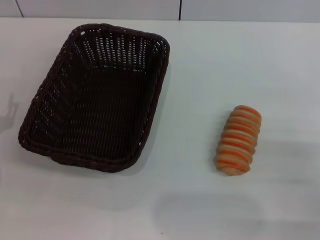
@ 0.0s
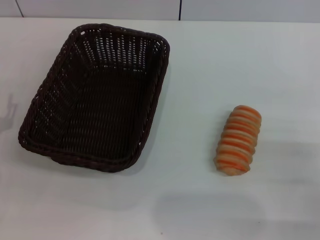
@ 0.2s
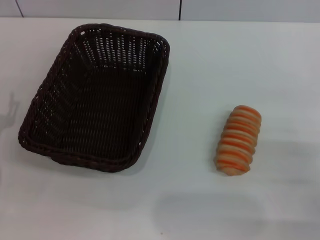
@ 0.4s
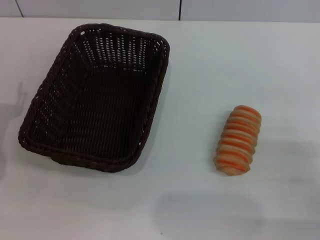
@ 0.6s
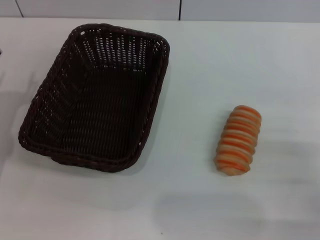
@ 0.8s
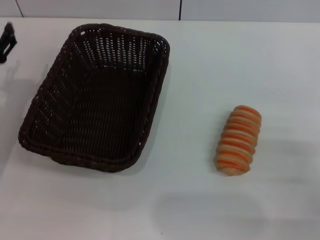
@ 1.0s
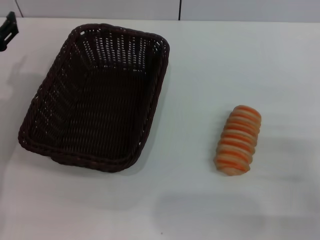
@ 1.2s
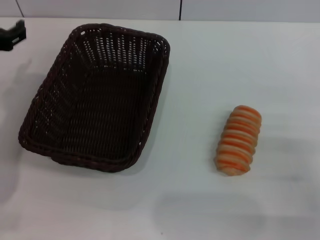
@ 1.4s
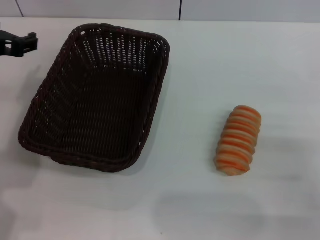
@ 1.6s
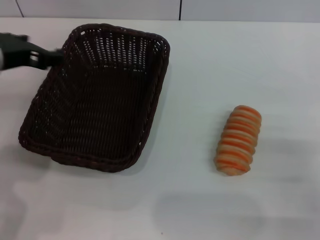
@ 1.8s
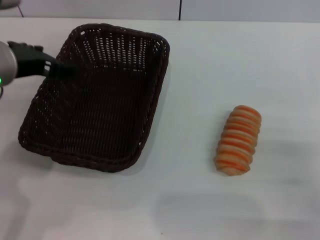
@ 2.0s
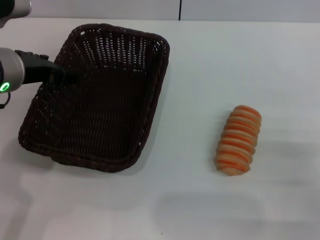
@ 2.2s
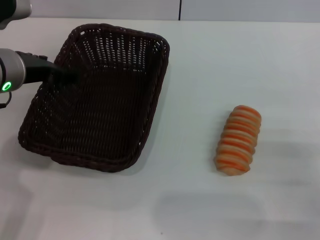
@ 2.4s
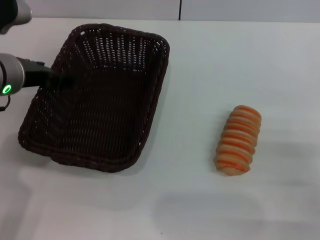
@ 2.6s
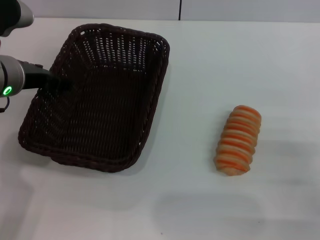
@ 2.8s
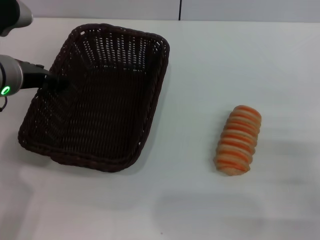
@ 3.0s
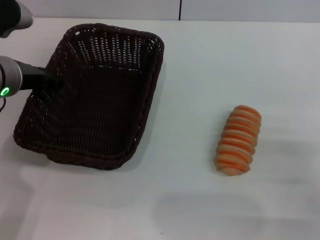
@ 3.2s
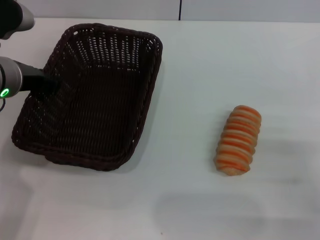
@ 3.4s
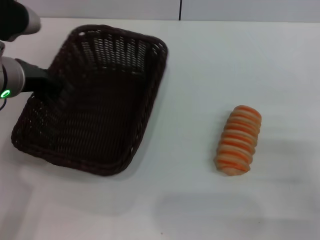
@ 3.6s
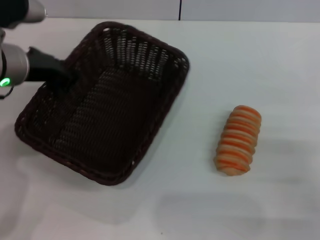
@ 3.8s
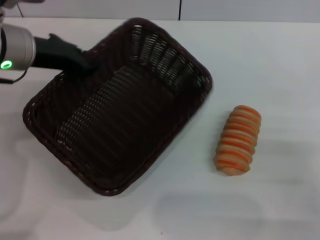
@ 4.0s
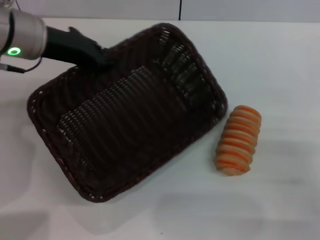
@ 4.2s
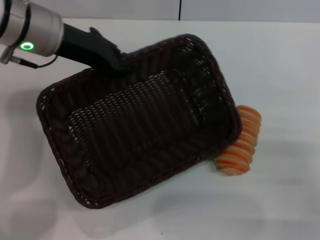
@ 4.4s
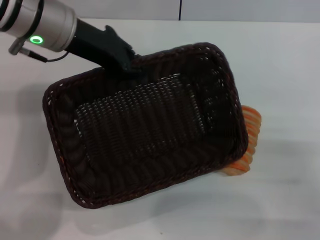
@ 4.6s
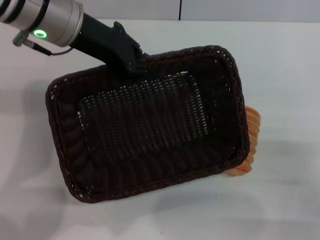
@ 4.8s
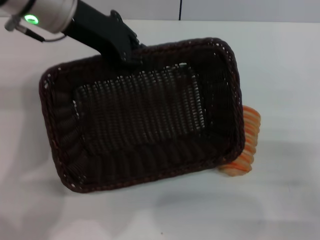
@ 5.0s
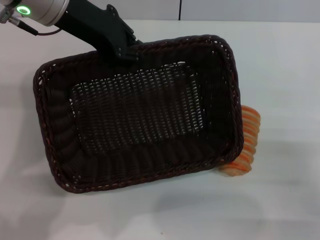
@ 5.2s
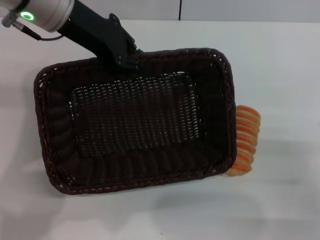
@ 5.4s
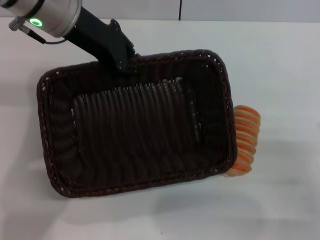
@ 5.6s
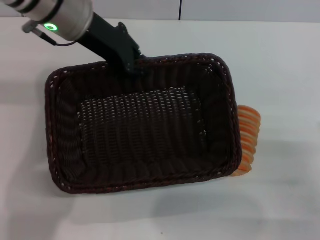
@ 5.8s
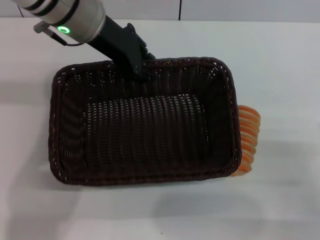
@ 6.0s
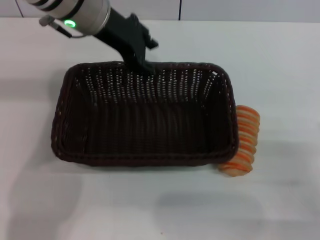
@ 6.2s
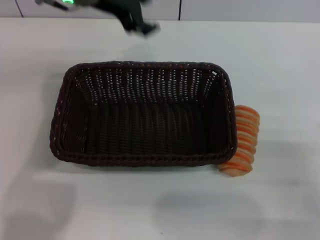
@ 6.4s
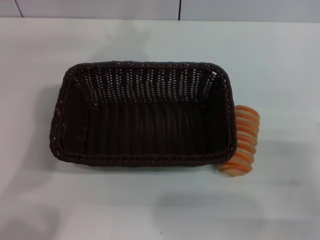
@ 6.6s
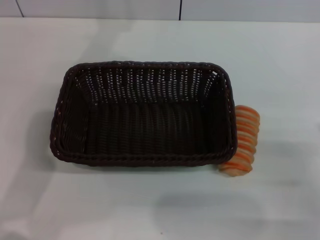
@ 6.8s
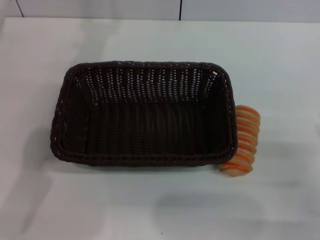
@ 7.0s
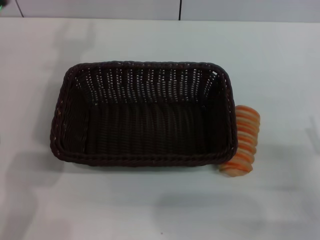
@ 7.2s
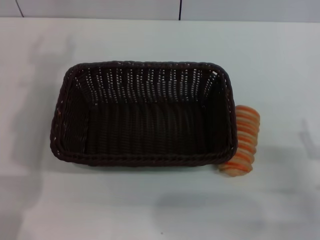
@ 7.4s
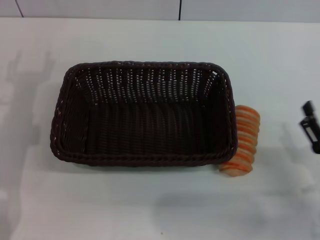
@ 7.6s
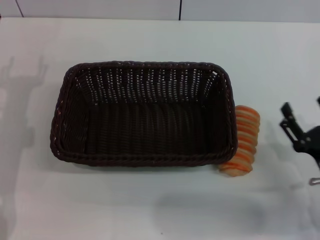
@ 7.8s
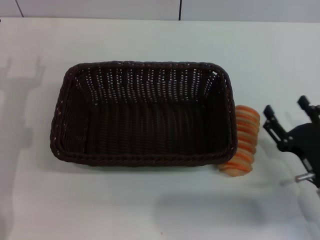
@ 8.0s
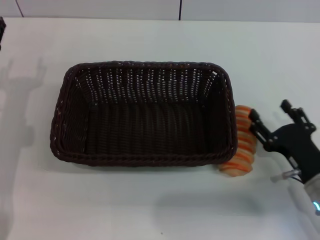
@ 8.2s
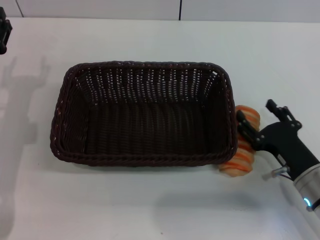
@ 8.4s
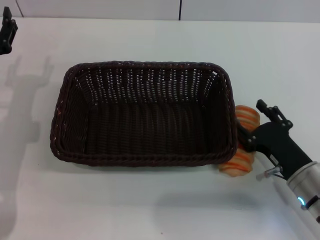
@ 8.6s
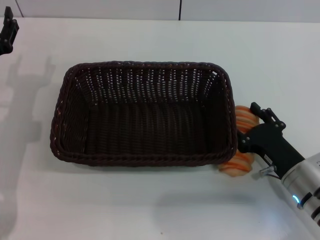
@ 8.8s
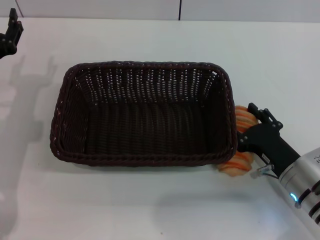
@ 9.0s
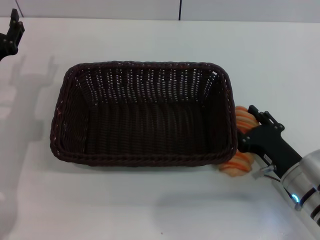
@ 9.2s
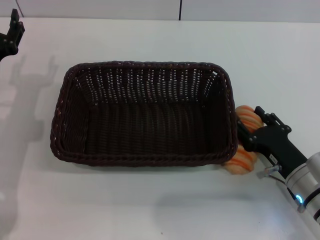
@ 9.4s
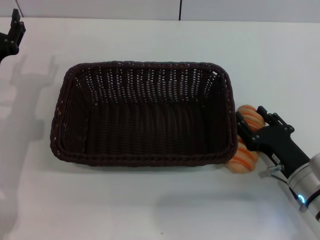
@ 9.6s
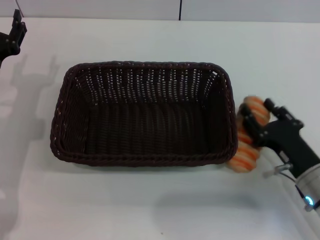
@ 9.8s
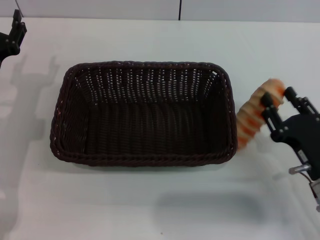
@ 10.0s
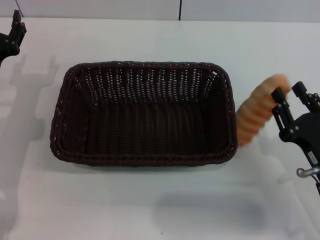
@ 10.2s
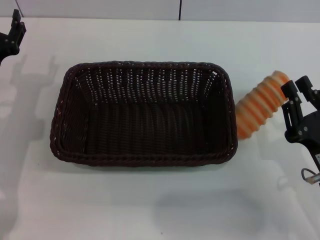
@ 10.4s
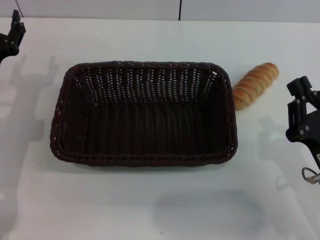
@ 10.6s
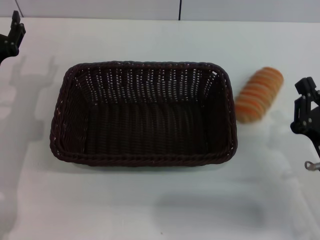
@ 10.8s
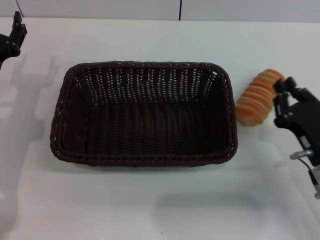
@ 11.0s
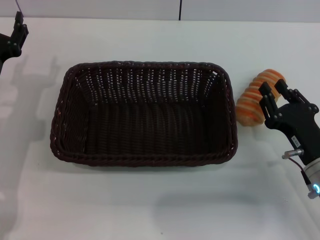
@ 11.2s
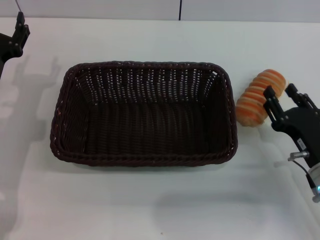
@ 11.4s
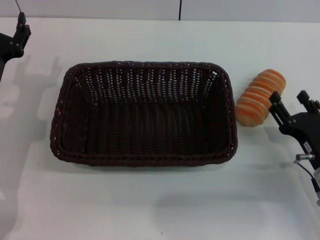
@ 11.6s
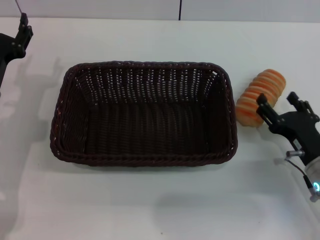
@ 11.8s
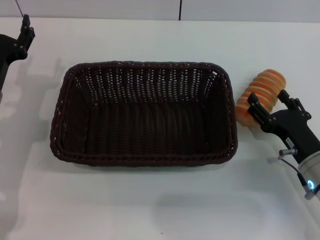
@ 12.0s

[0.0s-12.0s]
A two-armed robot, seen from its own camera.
Step, 0.0s to 3.8s: Pick up the dark basket with the left gripper.
Step, 4.0s to 6.2s: Place the dark basket in the center of view with the left gripper.
0.0s to 1.6s: The left gripper moves upward and forward, some 20 cm.
1.6s to 3.0s: The left gripper ends up approximately 5 cm from where it was.
3.0s to 4.4s: The left gripper moves upward, some 5 cm, and closes up.
4.4s to 6.0s: The left gripper travels to the right by approximately 5 cm.
6.0s to 7.6s: The left gripper moves to the left, downward and backward, some 20 cm, and opens up.
7.6s to 9.0s: The right gripper goes roughly 10 cm forward and to the left.
9.0s to 10.4s: The right gripper shifts roughly 5 cm backward, and closes.
10.4s to 12.0s: The right gripper is displaced forward by approximately 5 cm, and opens.

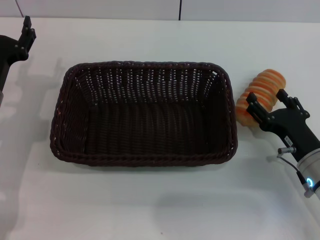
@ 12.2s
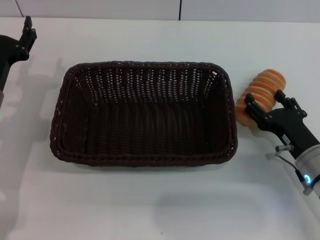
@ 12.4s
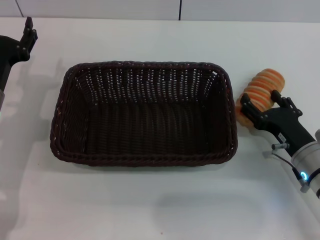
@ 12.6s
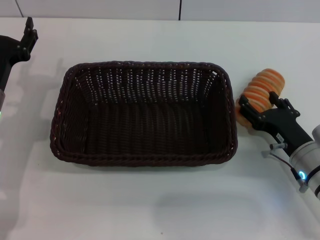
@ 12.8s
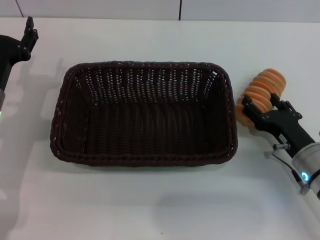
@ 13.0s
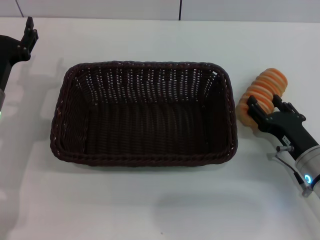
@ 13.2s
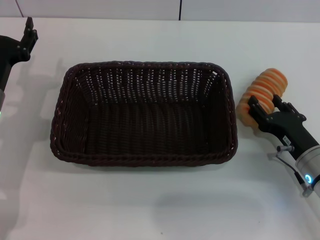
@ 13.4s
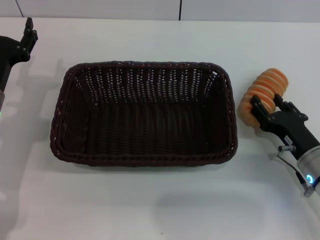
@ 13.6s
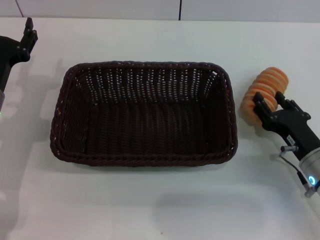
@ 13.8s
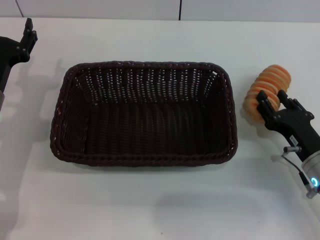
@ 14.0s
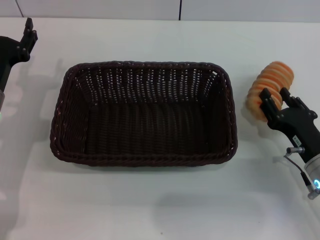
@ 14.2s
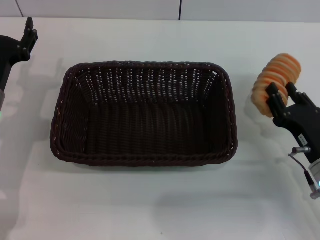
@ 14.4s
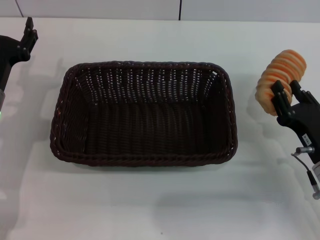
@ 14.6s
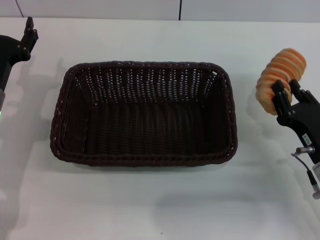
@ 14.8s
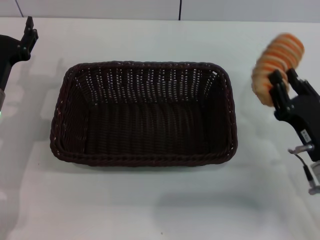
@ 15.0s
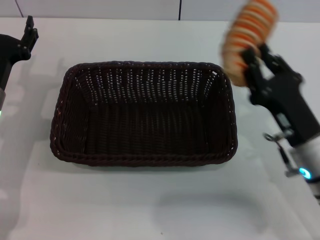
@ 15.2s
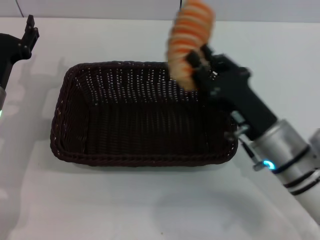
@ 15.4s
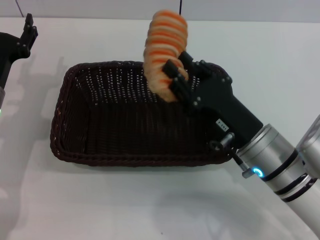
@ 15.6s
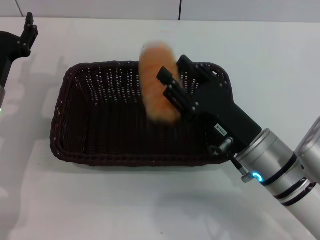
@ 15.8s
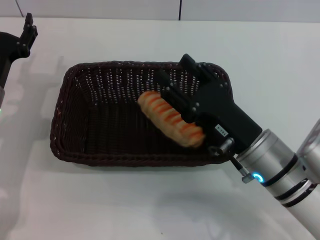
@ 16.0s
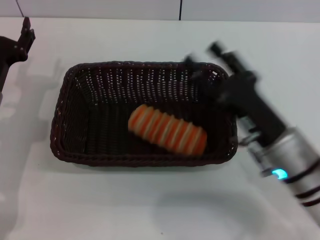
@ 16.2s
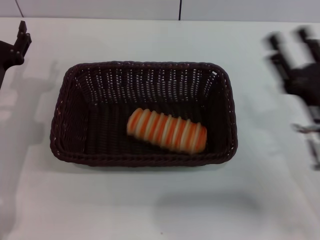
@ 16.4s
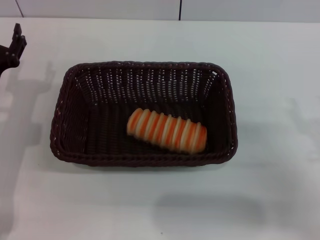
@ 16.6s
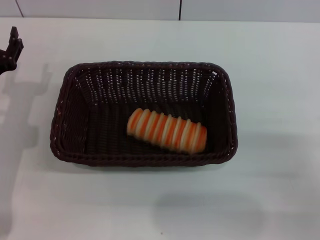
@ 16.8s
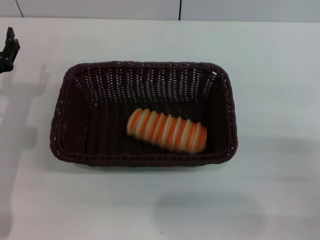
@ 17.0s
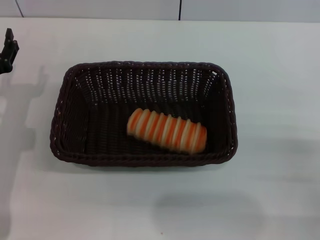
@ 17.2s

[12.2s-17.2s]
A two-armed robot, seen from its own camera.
Step, 12.2s to 14.4s: Pick up the long bread with the right gripper.
Step, 14.6s to 16.0s: Place the long bread into the dark basket with the right gripper.
12.2s to 13.8s: The right gripper closes its fingers.
13.8s to 15.6s: The right gripper shifts roughly 10 cm to the left and upward, and closes up.
15.6s to 17.2s: The right gripper is displaced to the right by approximately 20 cm, and opens.

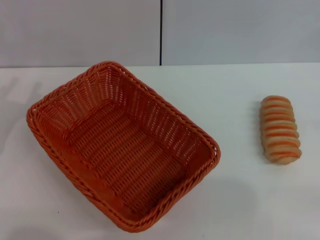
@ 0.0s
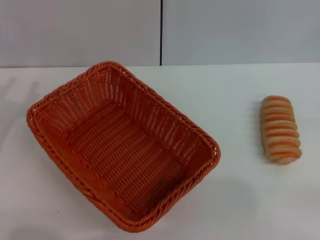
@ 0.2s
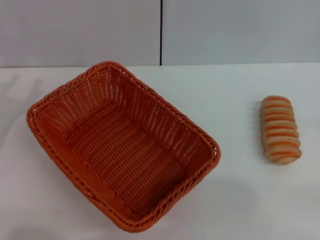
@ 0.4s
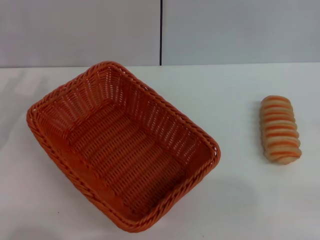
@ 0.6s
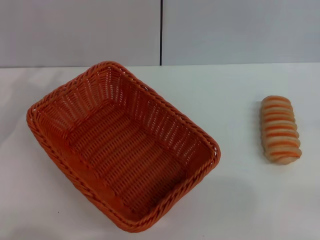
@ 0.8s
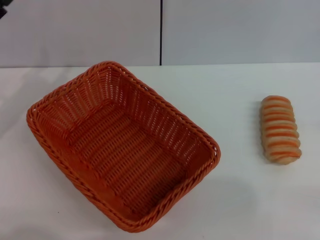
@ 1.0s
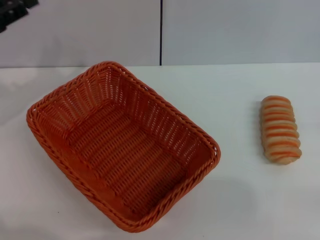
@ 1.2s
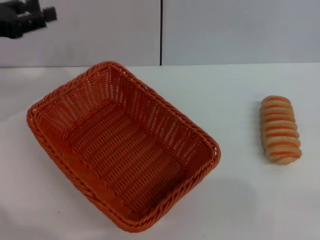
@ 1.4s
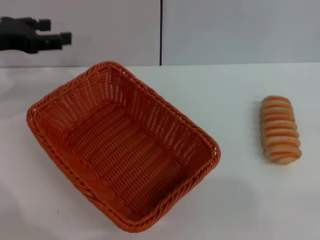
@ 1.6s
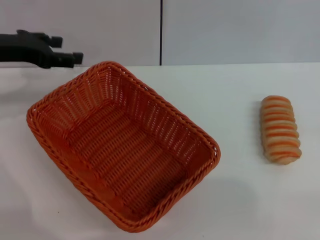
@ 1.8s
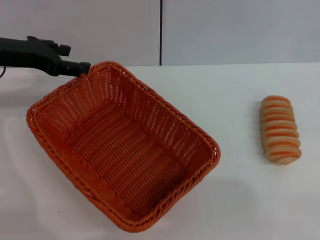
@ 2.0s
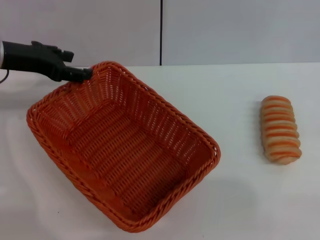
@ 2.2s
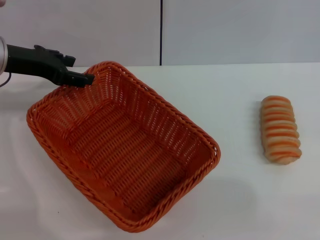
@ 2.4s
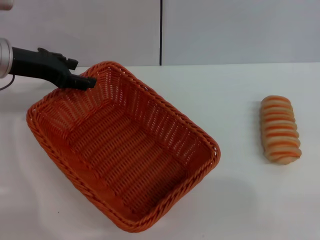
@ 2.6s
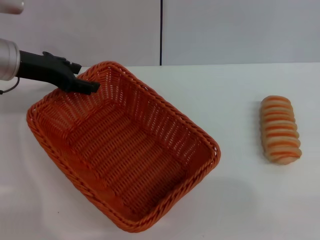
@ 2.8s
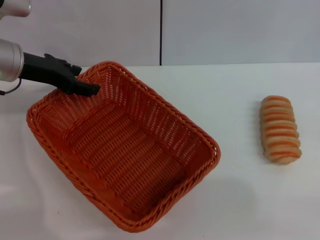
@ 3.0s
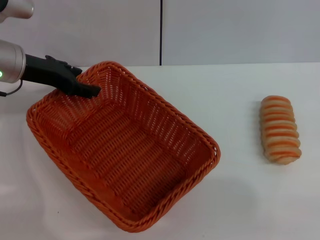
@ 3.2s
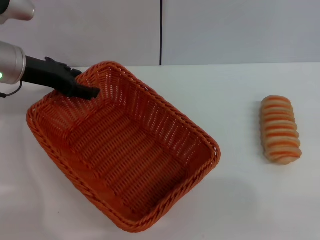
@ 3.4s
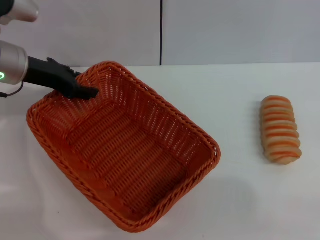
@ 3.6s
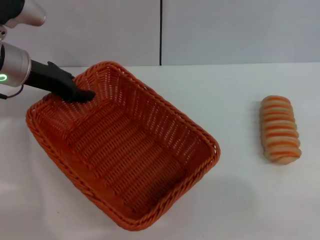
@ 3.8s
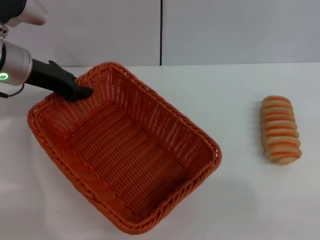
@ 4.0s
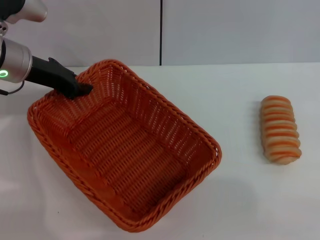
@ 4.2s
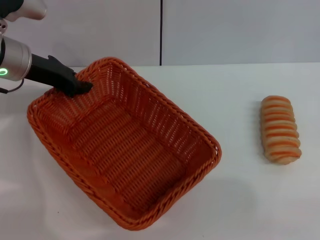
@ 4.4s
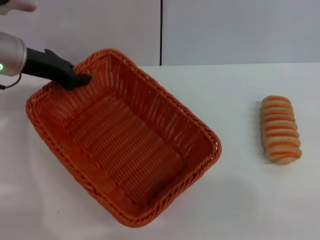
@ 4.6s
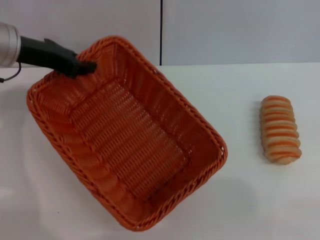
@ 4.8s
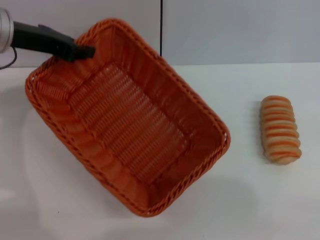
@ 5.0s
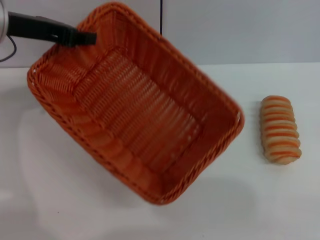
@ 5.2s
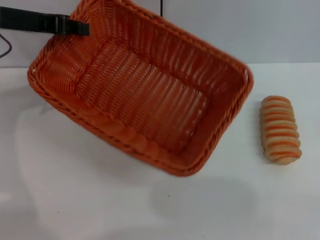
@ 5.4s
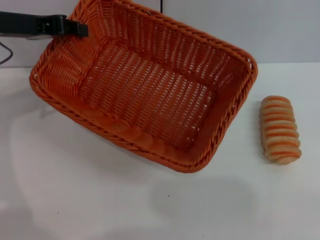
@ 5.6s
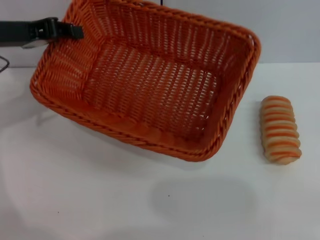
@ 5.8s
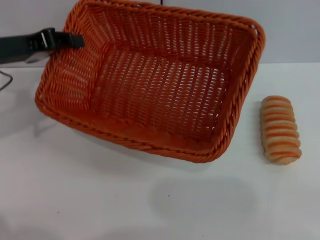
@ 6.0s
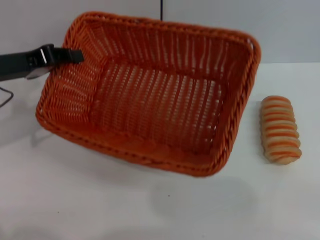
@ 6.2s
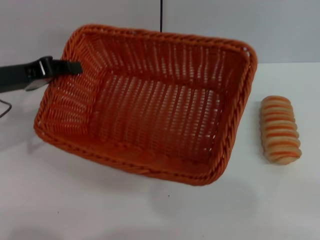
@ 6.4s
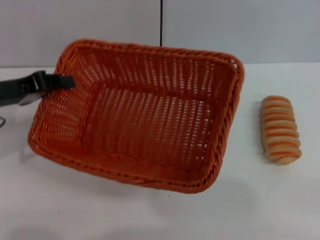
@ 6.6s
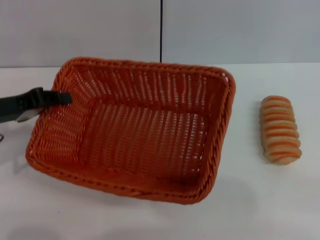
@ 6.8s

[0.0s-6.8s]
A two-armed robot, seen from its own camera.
Step, 0.0s to 5.0s: Pick up the light basket with the left gripper.
0.0s to 1.4s: The left gripper is displaced forward and upward by about 15 cm.
1.4s to 2.8s: The left gripper shifts some 5 cm to the right.
2.8s to 4.0s: The left gripper closes its fingers.
4.0s to 5.4s: The left gripper shifts roughly 5 cm upward, and closes up.
5.4s to 6.8s: The left gripper is displaced downward and backward by some 15 cm.
